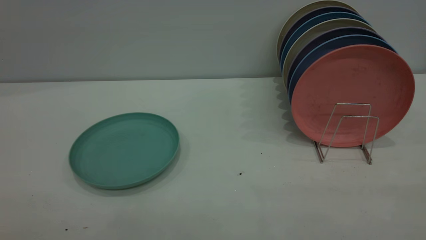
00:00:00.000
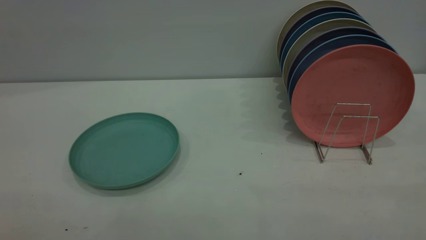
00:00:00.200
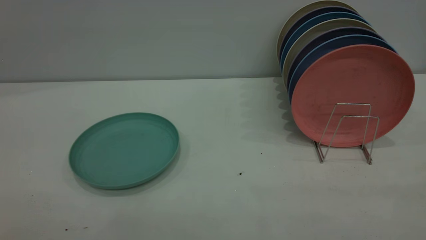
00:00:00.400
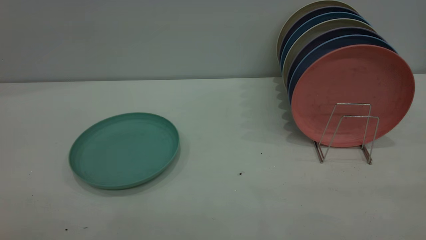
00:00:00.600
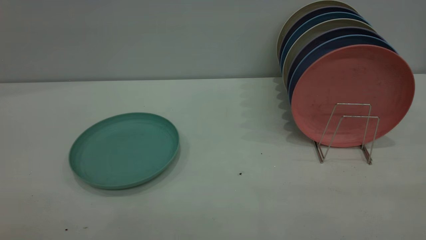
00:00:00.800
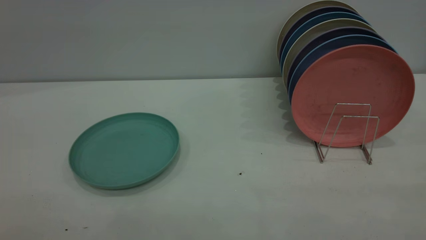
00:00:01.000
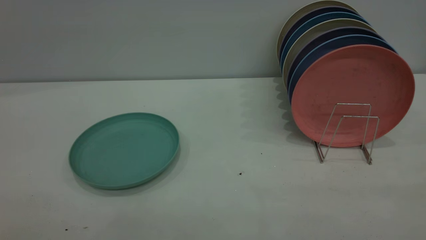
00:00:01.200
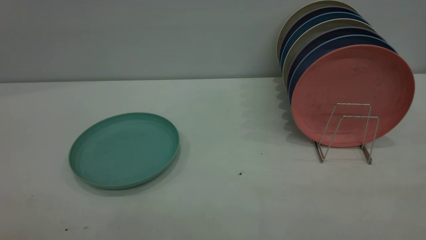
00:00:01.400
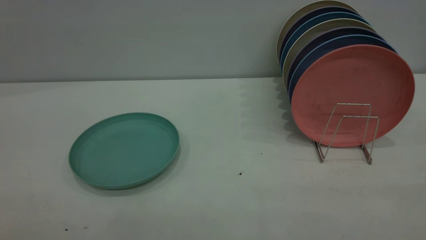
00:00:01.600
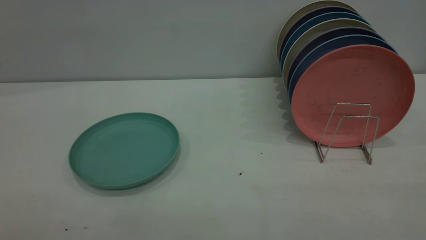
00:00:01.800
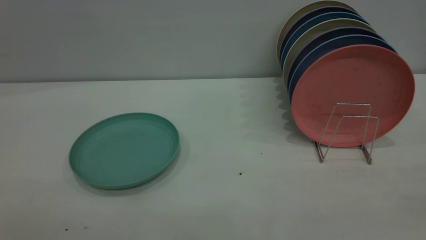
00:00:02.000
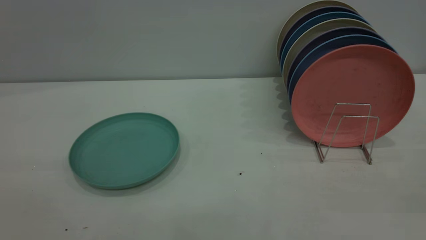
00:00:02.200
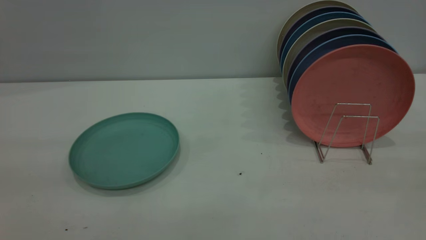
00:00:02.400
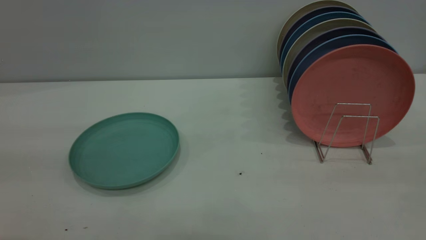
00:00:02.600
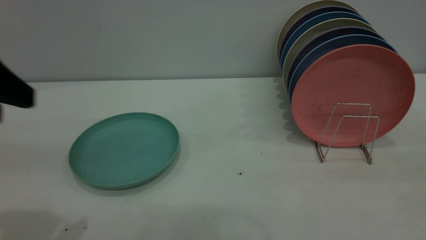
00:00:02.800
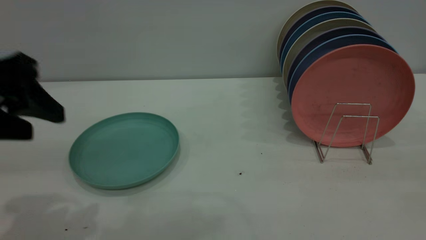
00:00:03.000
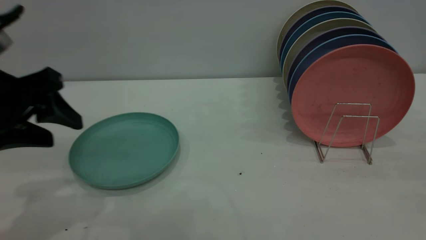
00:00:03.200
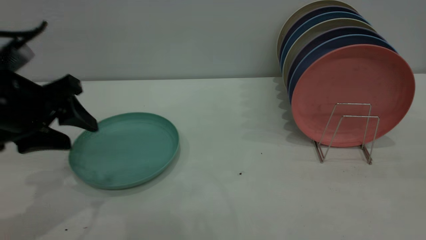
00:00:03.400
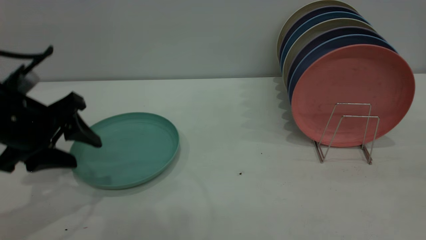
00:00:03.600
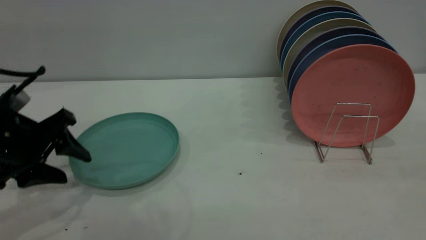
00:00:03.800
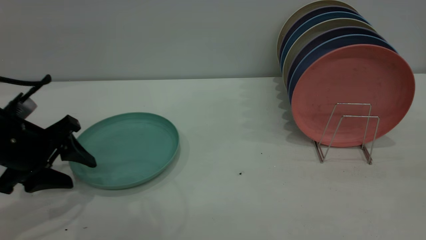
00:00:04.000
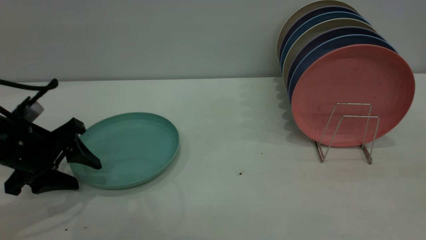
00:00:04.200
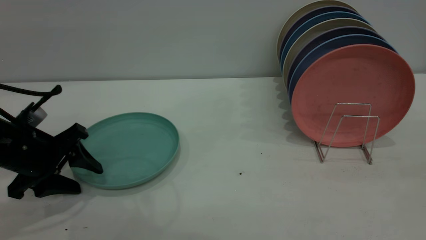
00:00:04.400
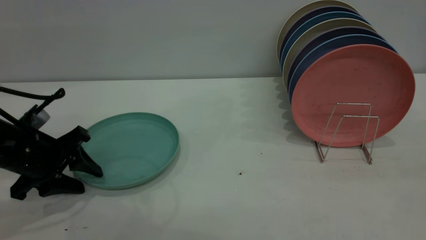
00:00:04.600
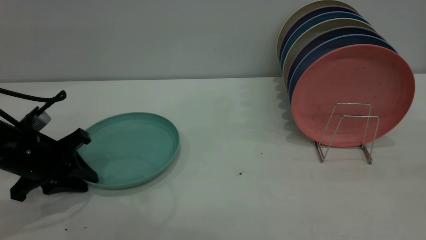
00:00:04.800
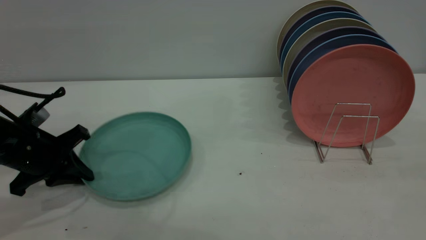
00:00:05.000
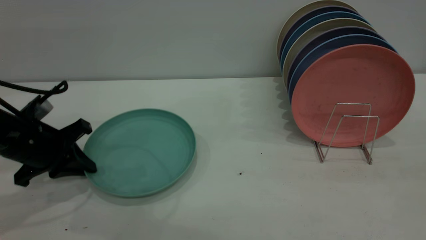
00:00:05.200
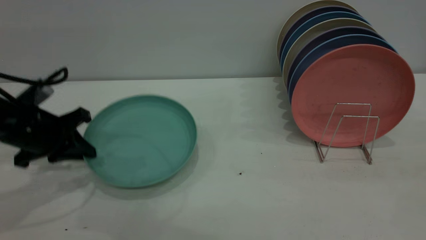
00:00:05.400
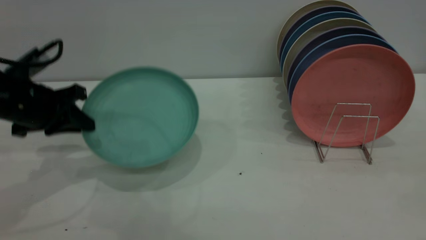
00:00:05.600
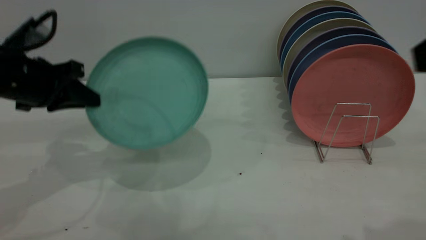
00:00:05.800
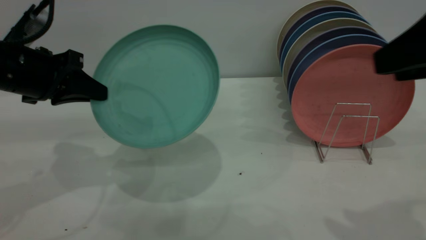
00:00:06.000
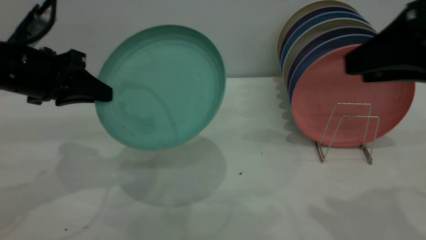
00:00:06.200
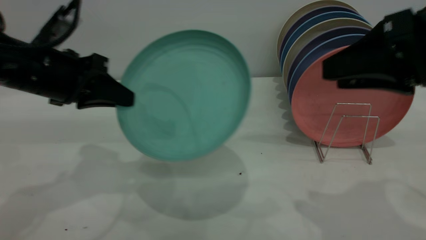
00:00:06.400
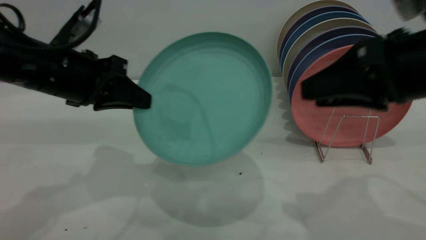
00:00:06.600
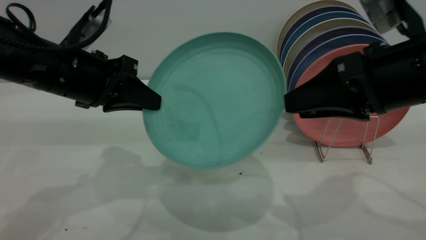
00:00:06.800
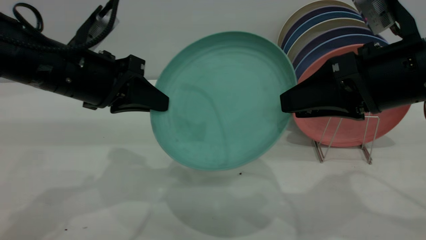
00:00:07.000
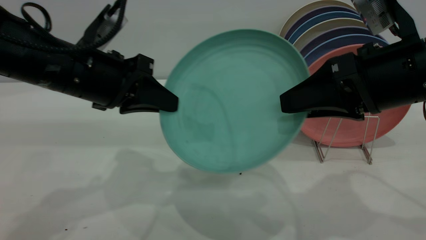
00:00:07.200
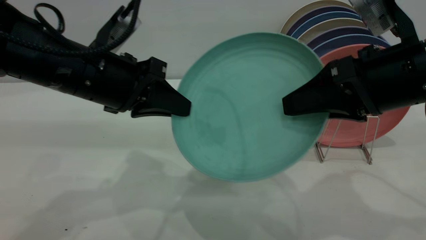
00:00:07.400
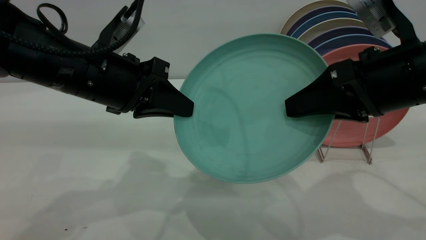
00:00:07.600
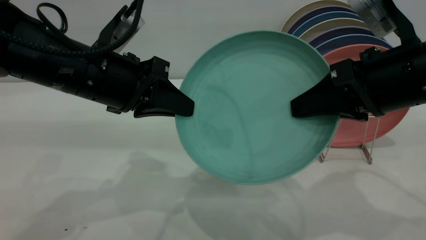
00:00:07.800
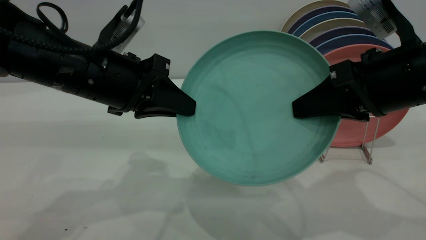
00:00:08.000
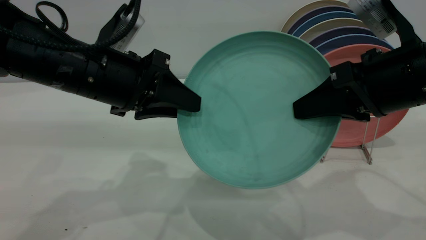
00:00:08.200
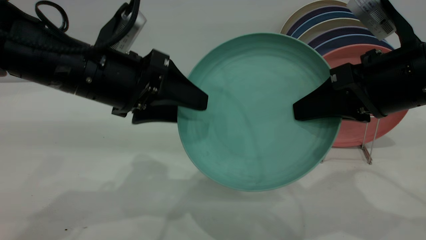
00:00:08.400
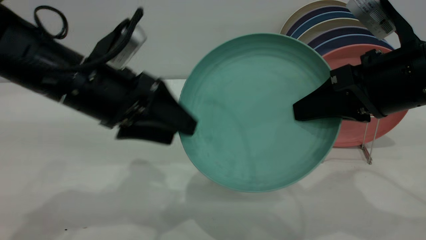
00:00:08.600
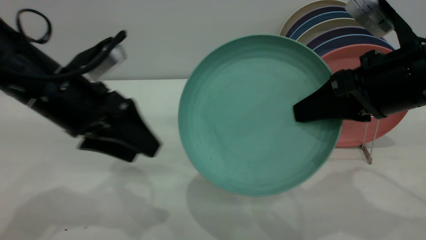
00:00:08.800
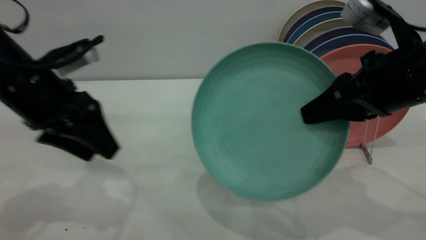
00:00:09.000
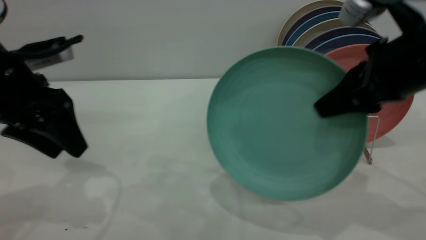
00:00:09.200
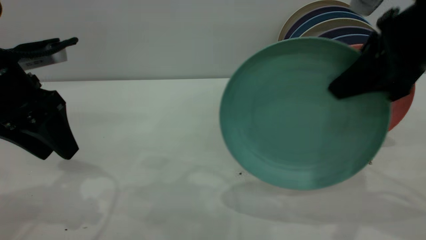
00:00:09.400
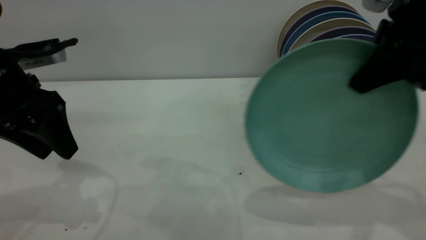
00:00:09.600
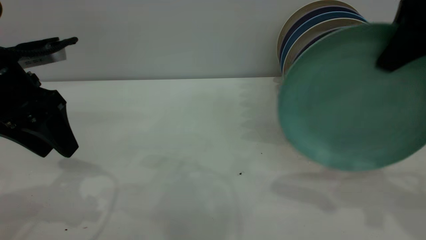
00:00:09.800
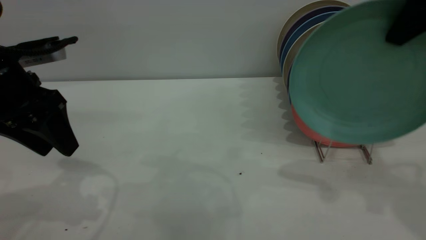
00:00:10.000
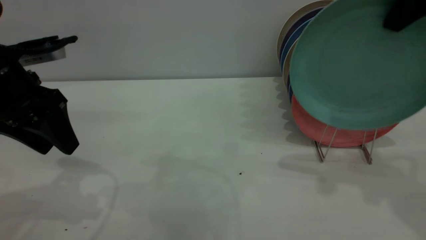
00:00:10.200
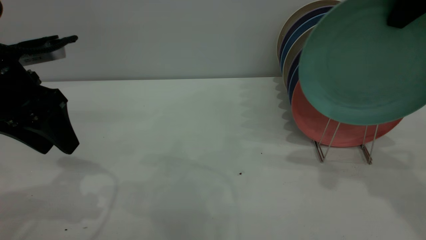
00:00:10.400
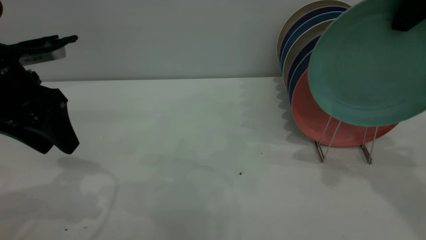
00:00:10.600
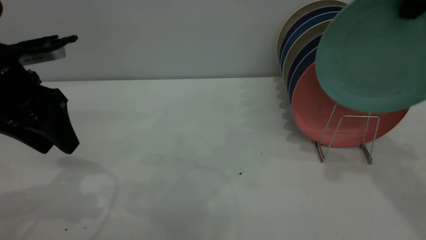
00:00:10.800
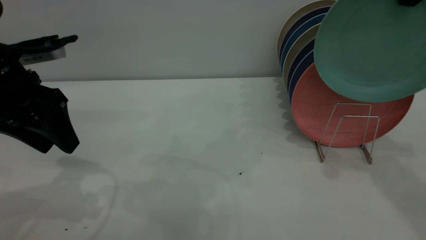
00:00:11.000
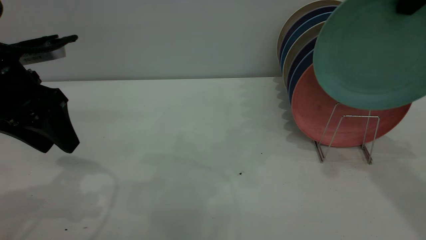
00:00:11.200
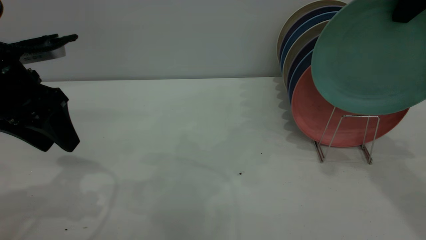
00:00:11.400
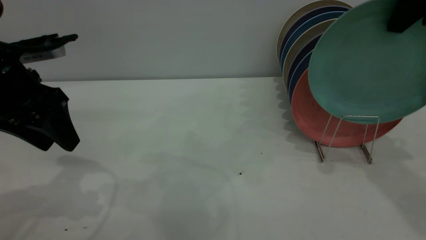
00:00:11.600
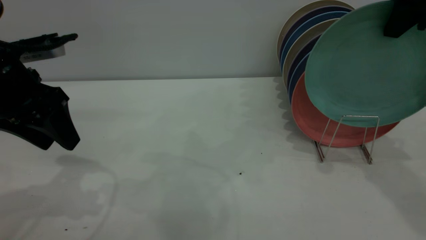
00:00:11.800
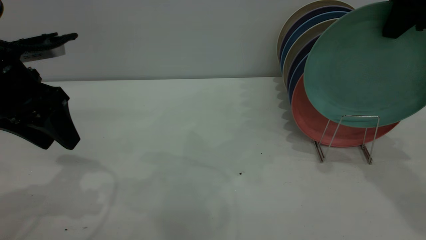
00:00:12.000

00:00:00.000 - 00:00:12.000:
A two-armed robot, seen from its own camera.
Task of the whole recording: the left gripper grasp the green plate, the left gripper pass the green plate to the right gripper, and the right gripper place the green plate on the plate rack.
Step, 00:00:00.000 - 00:00:05.400: Pick up the plate with the left gripper.
Step, 00:00:05.600 - 00:00:08.600: Pass the plate from the left gripper to the right gripper.
00:00:00.000 - 00:00:01.600: Both grippers stay about where they are.
00:00:01.600 - 00:00:03.000: The left gripper shifts roughly 25 cm forward and downward.
00:00:03.000 - 00:00:04.400: The left gripper is displaced downward and forward by approximately 15 cm.
00:00:04.400 - 00:00:06.000: The left gripper shifts roughly 10 cm upward, and closes up. The right gripper shifts about 10 cm forward and downward.
00:00:06.000 - 00:00:07.600: The left gripper moves to the right, about 10 cm; the right gripper is displaced downward and forward by about 10 cm.
00:00:07.600 - 00:00:09.000: The right gripper closes up; the left gripper goes roughly 10 cm to the left, and opens up.
00:00:09.000 - 00:00:10.400: The right gripper heads upward and forward, covering some 15 cm.
00:00:10.400 - 00:00:12.000: The grippers make only small movements.

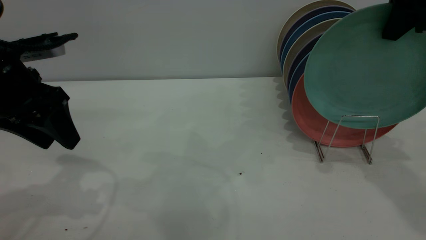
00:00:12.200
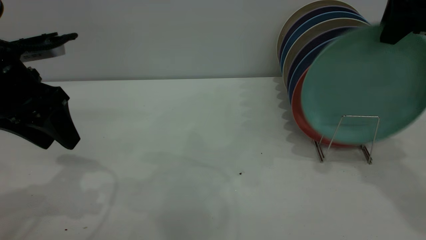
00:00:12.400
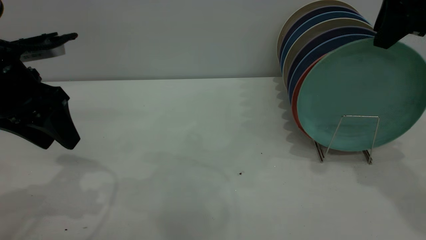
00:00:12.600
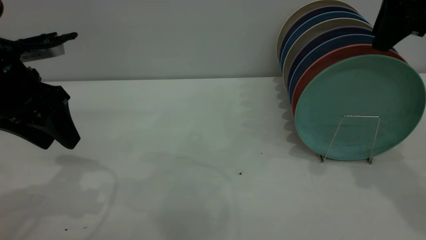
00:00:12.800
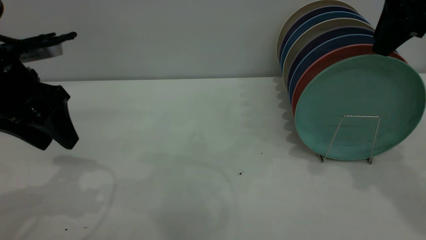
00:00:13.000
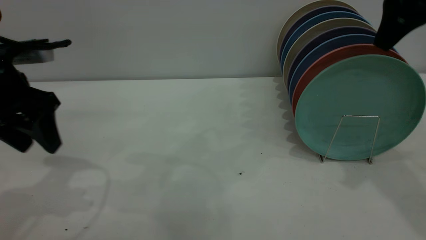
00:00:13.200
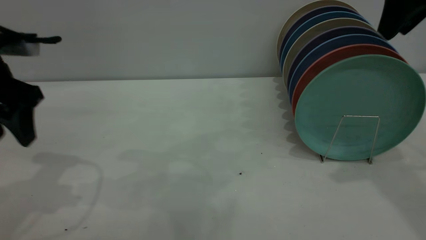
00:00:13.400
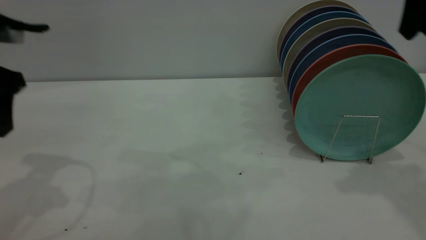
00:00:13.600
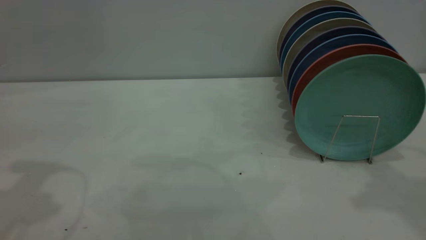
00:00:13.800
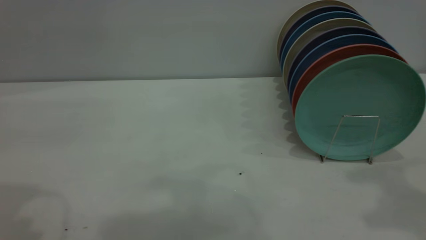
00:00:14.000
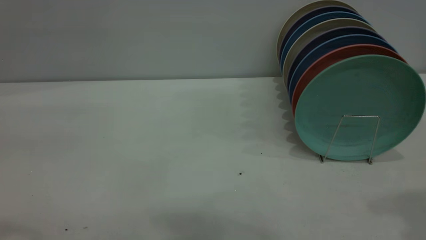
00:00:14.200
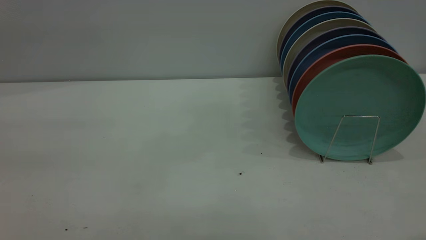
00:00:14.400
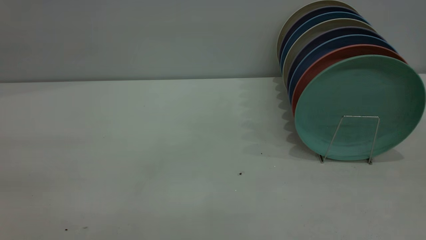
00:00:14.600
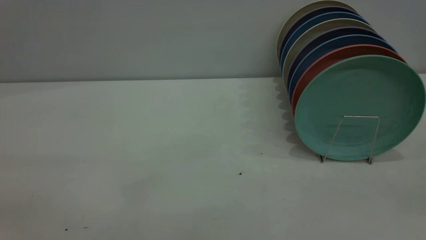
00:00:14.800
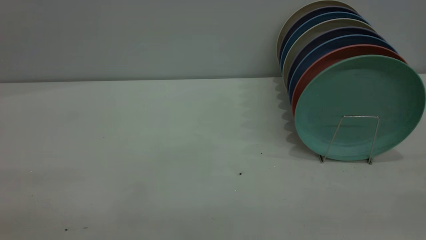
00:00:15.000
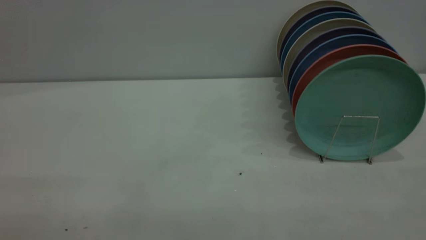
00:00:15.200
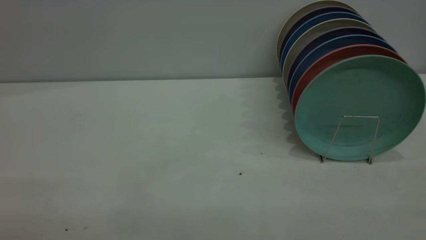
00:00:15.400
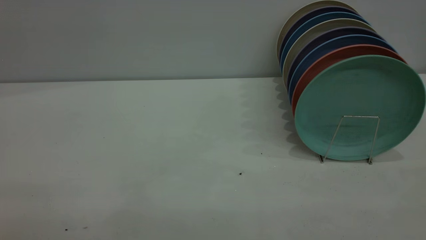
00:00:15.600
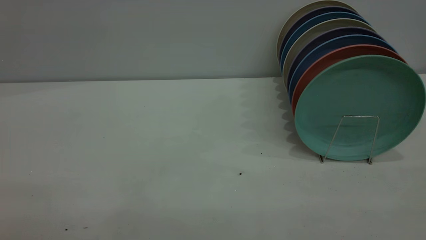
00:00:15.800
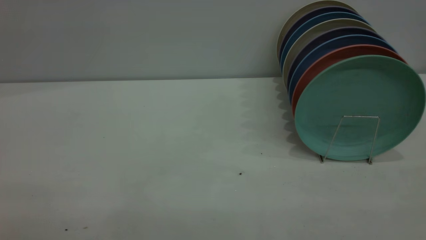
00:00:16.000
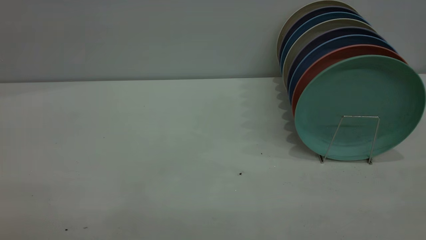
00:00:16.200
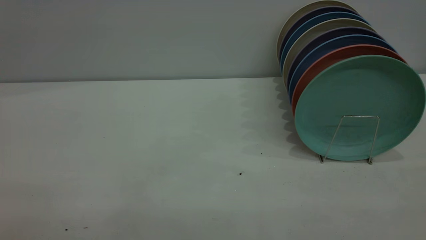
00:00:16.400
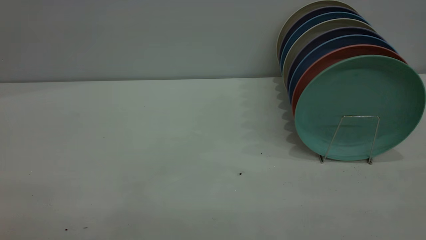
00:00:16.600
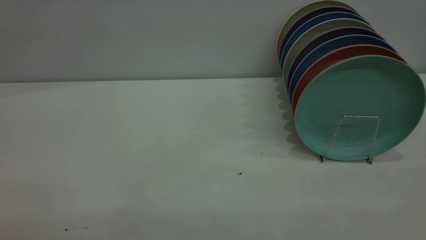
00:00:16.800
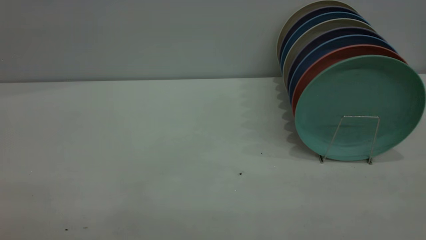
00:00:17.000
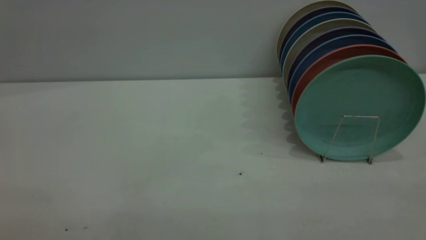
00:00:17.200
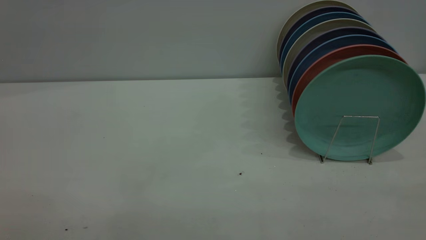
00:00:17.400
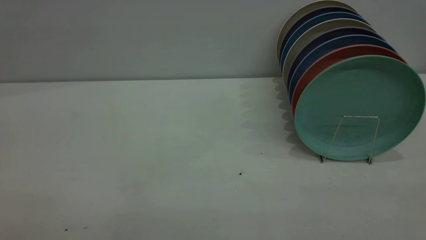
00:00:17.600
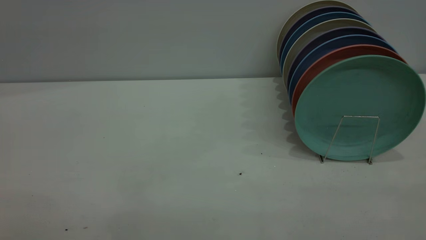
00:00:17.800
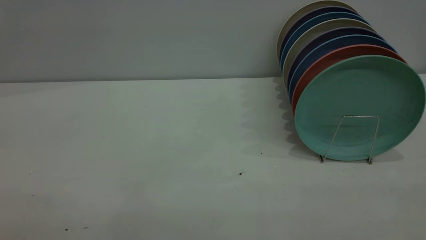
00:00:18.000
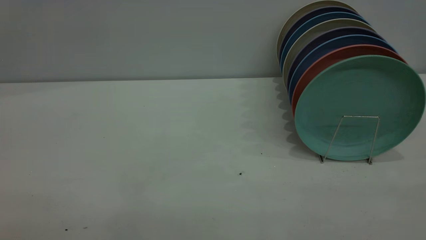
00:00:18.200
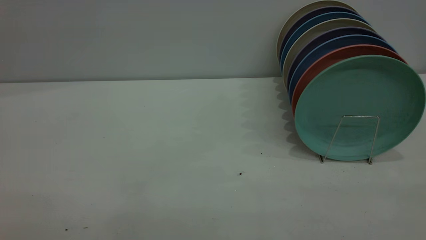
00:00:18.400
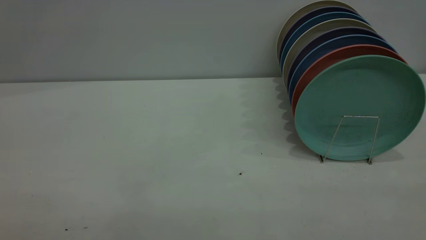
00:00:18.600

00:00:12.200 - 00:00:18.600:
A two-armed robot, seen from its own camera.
Task of the whole recording: the left gripper grasp the green plate, the left gripper pass the green plate to the right gripper, and the right gripper place the green plate on the plate rack.
00:00:12.200 - 00:00:13.800: The right gripper shifts about 10 cm backward and upward, and opens its fingers. Meanwhile the left gripper heads upward, covering some 10 cm.
